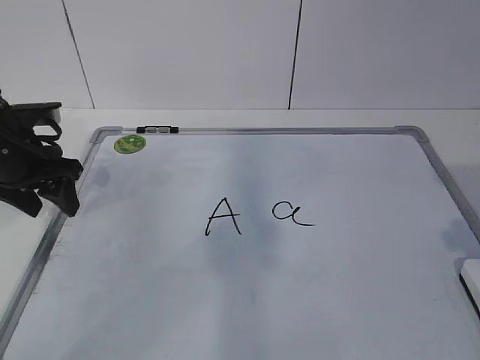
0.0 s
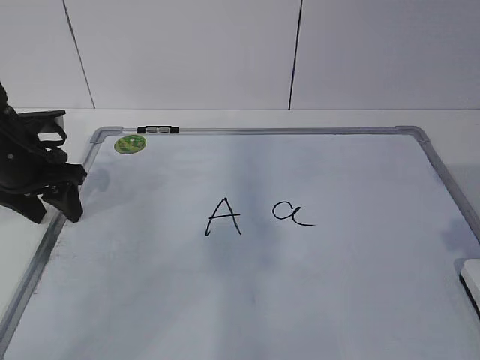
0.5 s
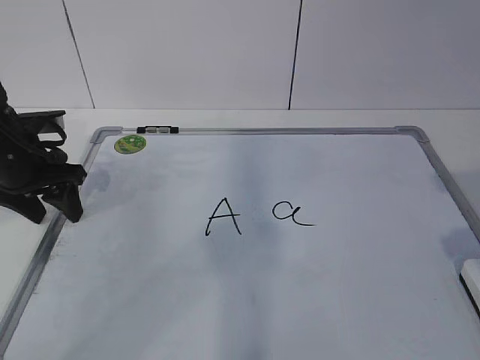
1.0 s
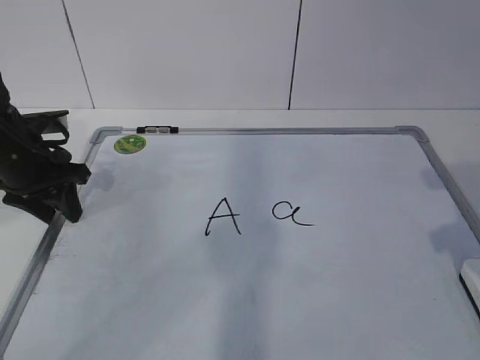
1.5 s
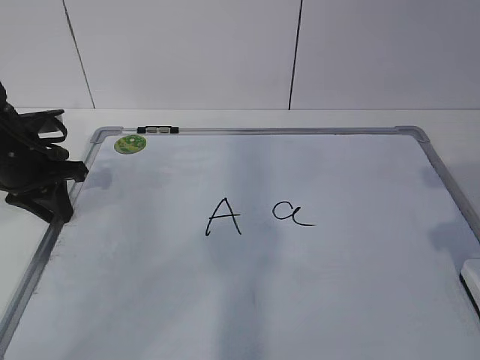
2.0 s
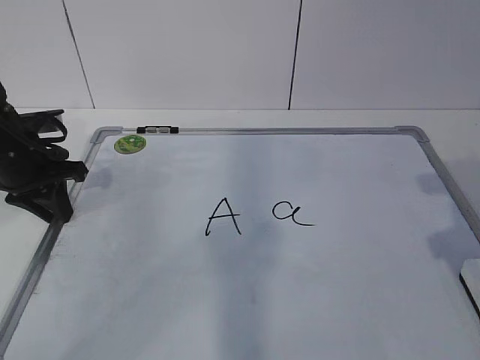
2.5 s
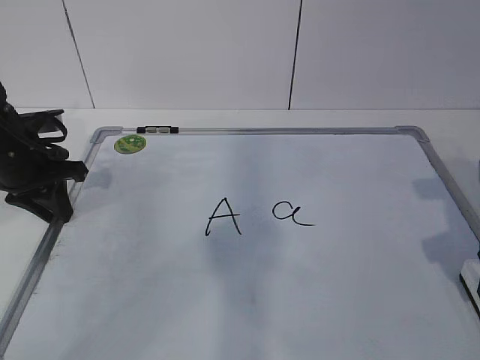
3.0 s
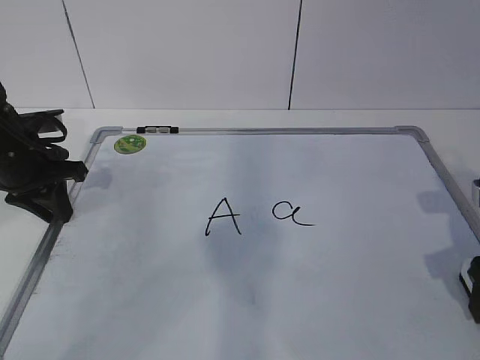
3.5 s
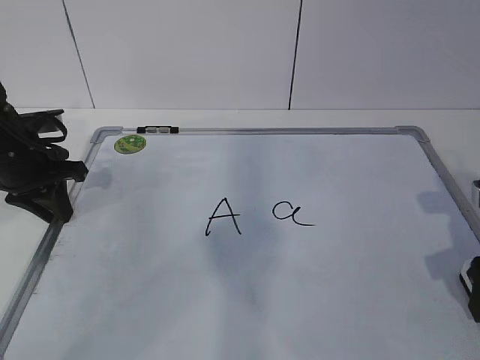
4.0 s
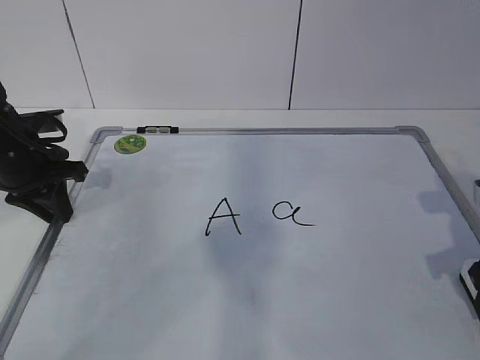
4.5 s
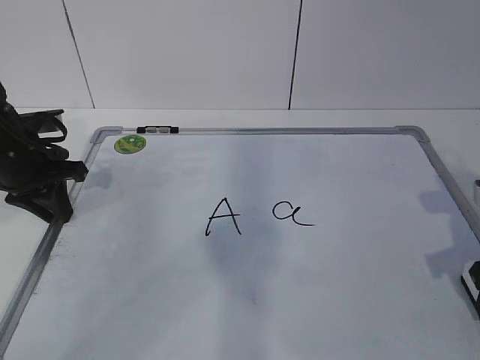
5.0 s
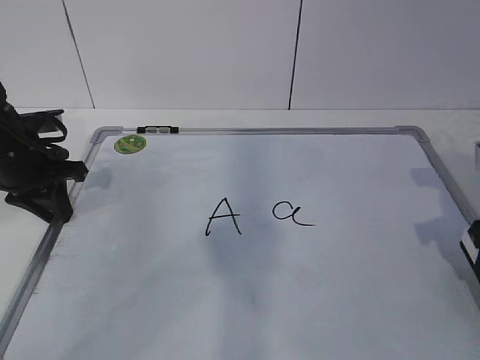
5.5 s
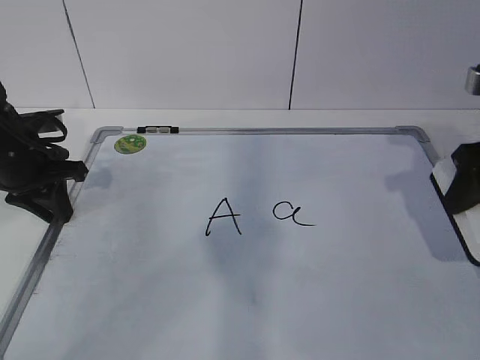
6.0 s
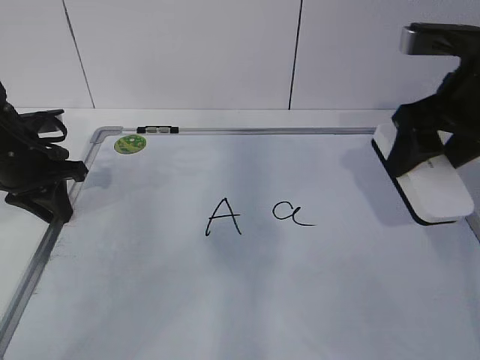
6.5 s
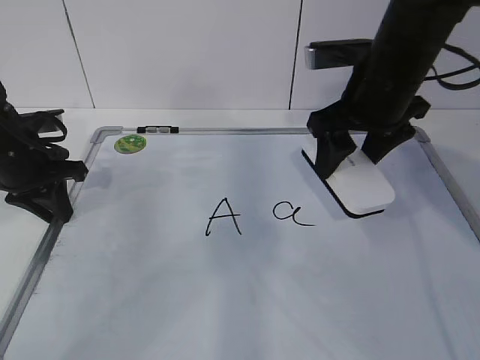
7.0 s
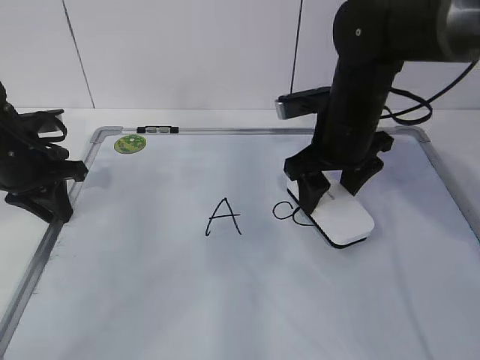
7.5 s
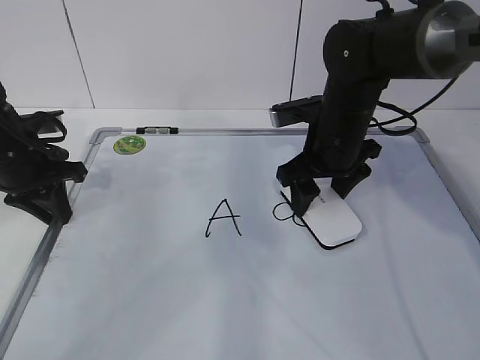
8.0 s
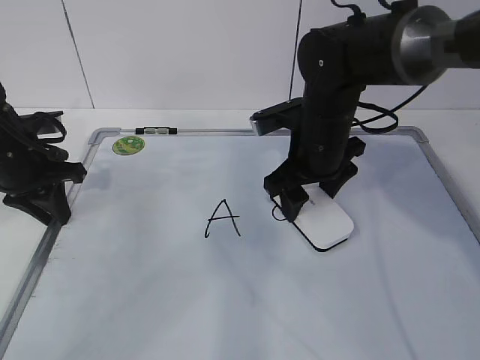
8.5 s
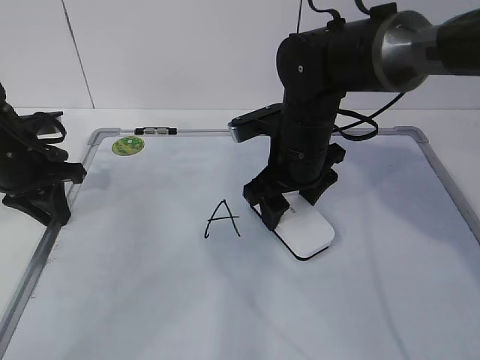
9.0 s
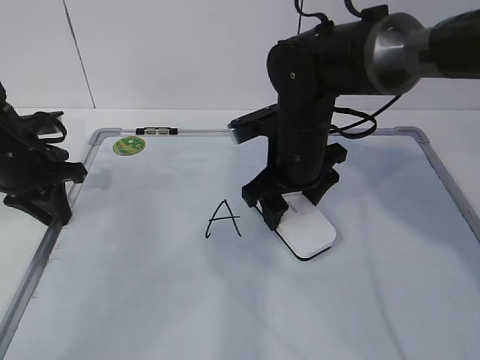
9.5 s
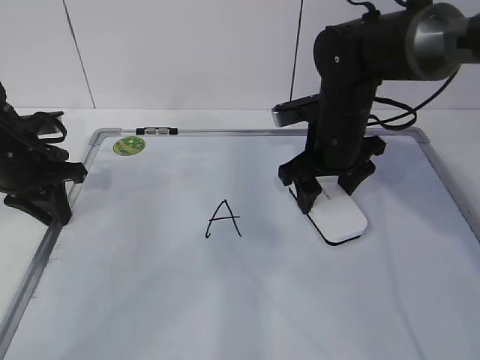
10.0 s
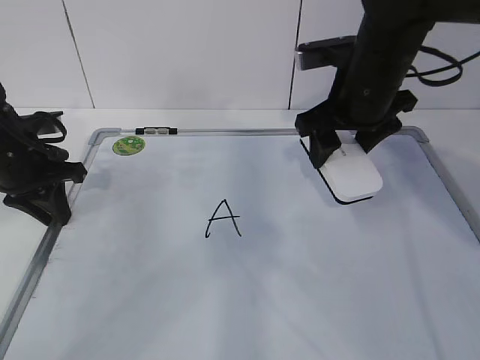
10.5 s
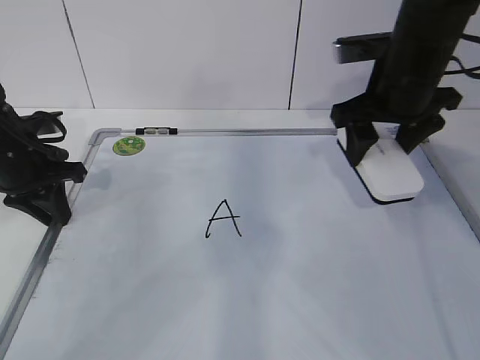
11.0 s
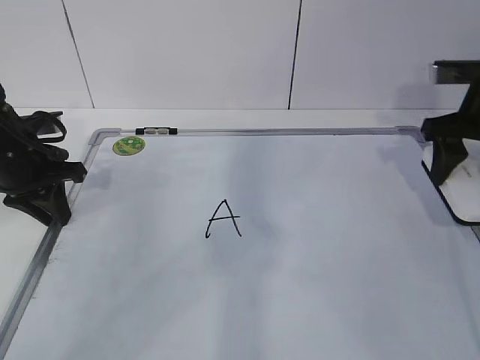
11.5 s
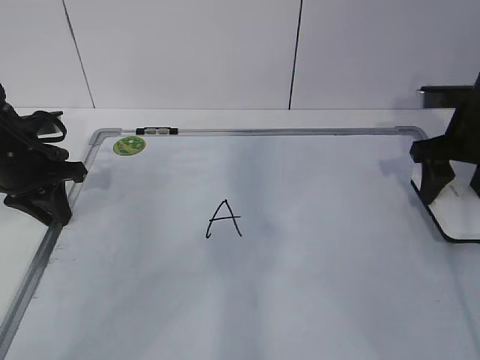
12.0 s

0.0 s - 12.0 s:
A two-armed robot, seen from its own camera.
Task of the whole recording: pick up the eraser on the blackboard and erase the letter "a".
Step, 0.5 s - 2.5 s: Grab the eraser with your right hand.
Step, 3.0 s - 7.0 s: Erase the letter a with your right hand.
Step, 7.5 s - 10.0 s: Put down the eraser with your right hand.
0.0 s - 2.0 s: The left gripper closes.
2.0 s - 4.0 s: The right gripper shifts about 10 cm downward, and opens its fingers.
4.0 s - 6.0 s: The right gripper is displaced upward by roughly 10 cm, and closes its fingers.
6.0 s - 8.0 s: The right gripper moves to the left, forward and downward, roughly 20 cm.
8.0 s - 10.0 s: The grippers make only small movements.
10.0 s - 12.0 s: The right gripper heads to the right, covering roughly 15 cm.

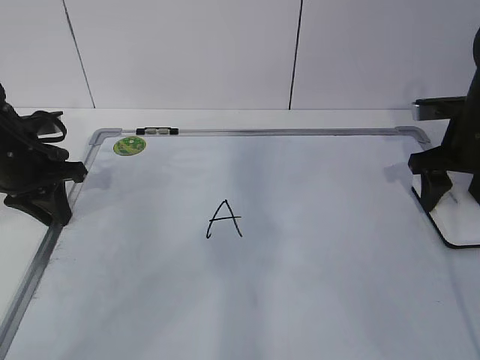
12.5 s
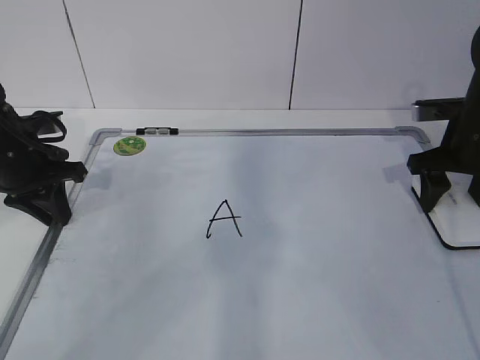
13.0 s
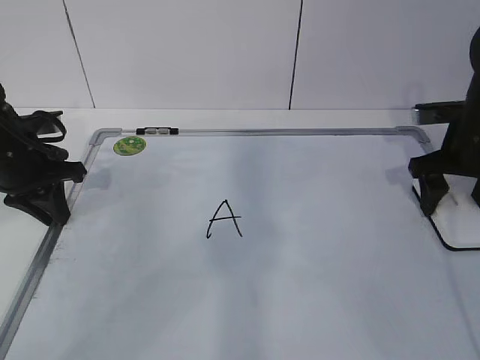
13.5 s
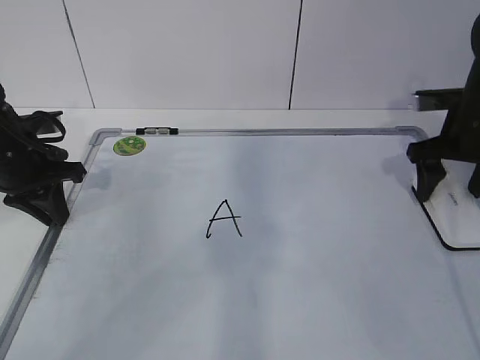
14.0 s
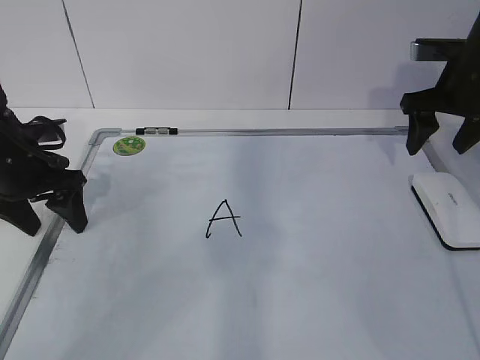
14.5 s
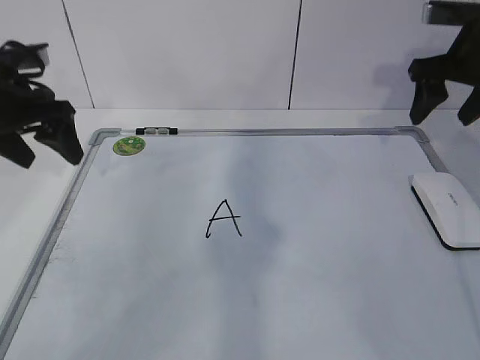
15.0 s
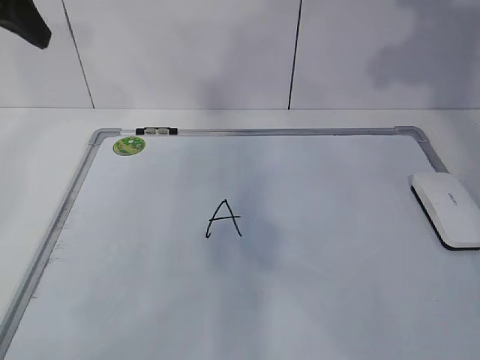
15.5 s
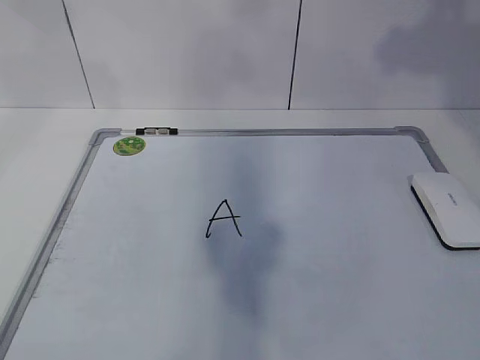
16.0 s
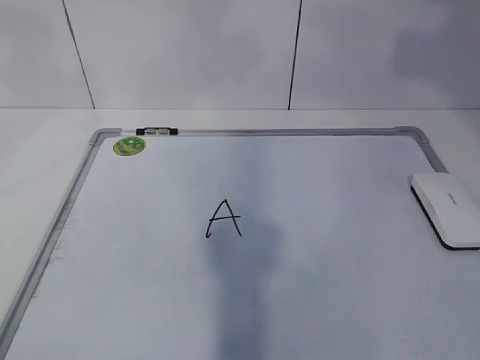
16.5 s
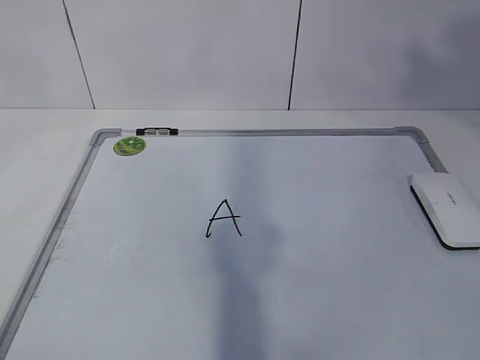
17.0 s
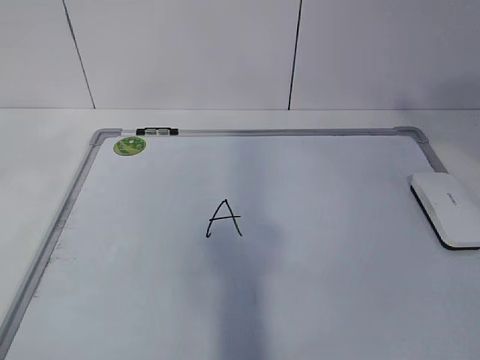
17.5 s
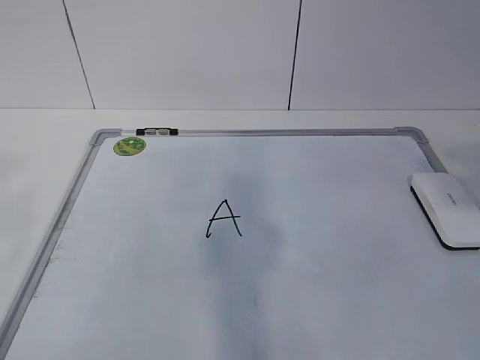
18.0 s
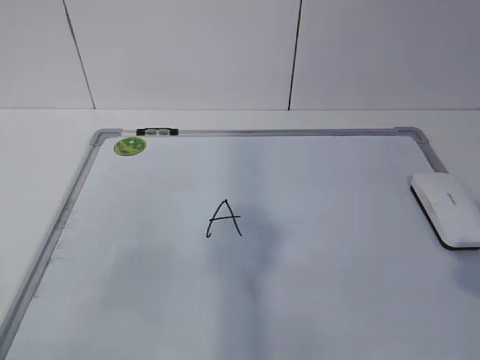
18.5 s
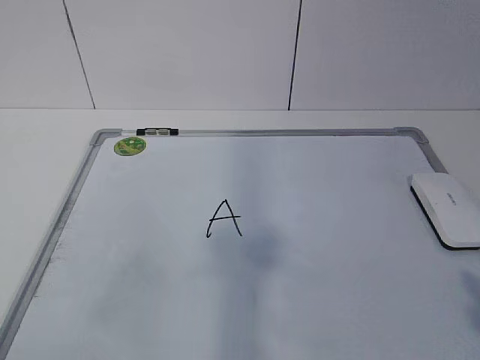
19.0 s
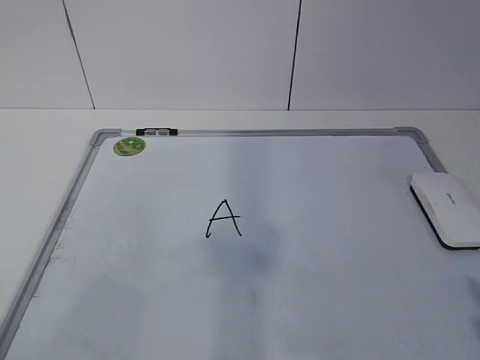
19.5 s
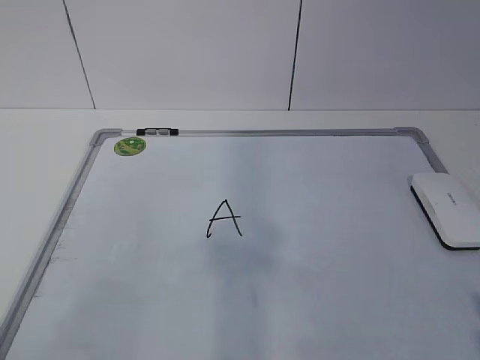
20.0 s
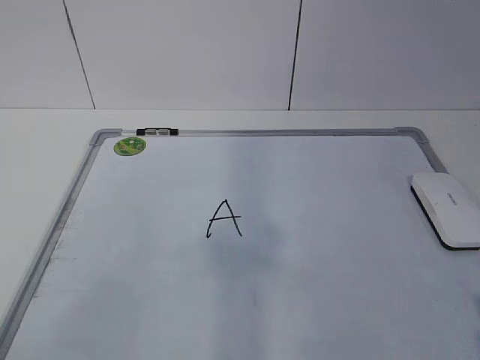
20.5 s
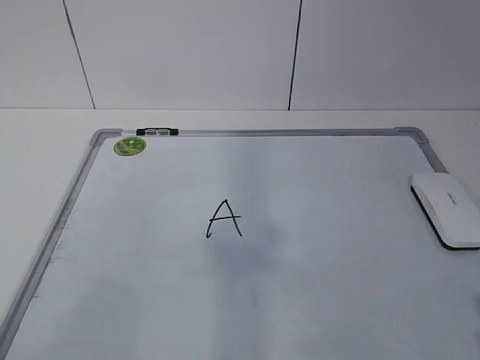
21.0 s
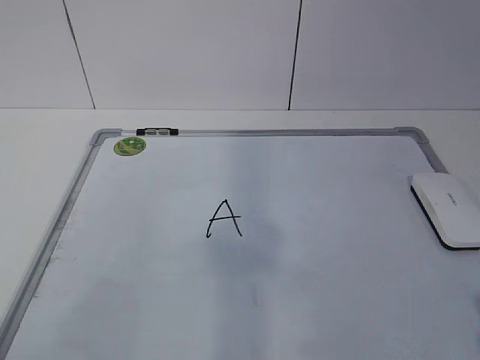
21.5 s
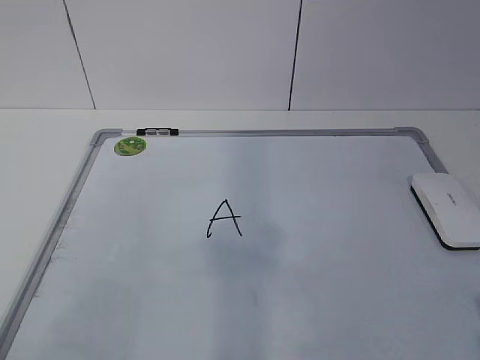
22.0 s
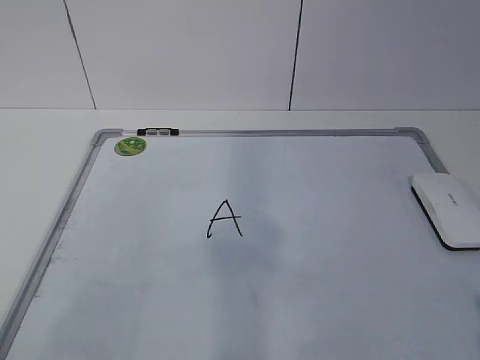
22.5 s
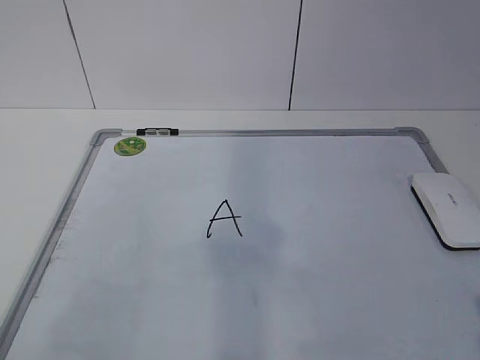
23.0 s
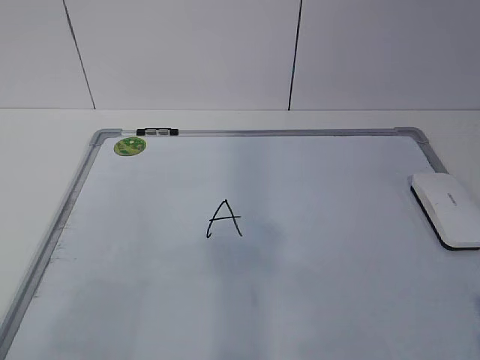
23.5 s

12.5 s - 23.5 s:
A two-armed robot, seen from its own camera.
Task of the whole recording: pick up the eraser on the blackboard and erase the letter "a".
12.5 s - 14.5 s: The right gripper heads upward, covering about 5 cm, and opens; the left gripper opens up.
14.5 s - 16.0 s: The left gripper moves upward, roughly 30 cm; the right gripper shifts some 30 cm upward and backward.
16.0 s - 18.0 s: The two grippers go approximately 25 cm backward.
18.0 s - 20.0 s: The left gripper travels downward by roughly 15 cm.
20.0 s - 21.5 s: Neither gripper changes place.

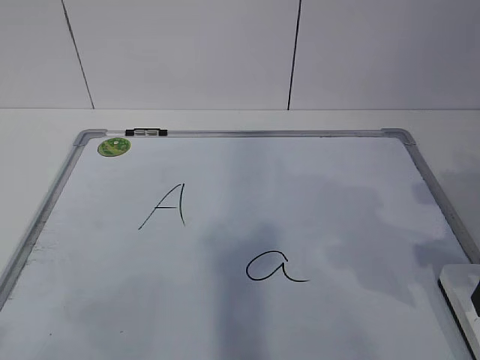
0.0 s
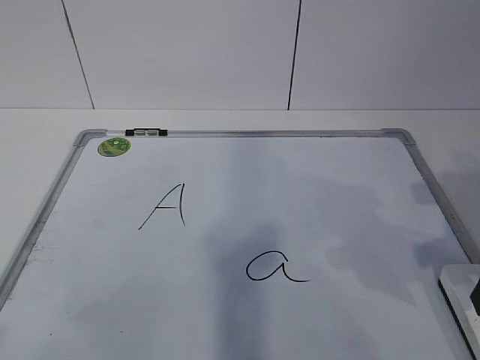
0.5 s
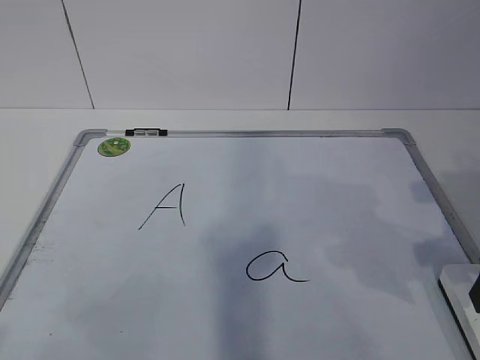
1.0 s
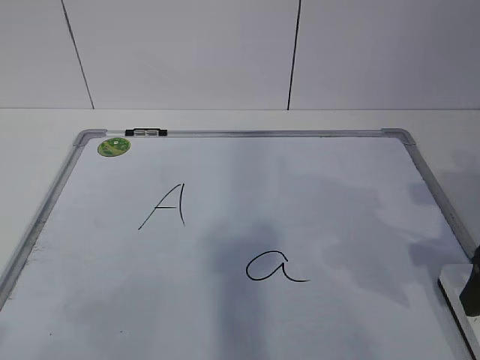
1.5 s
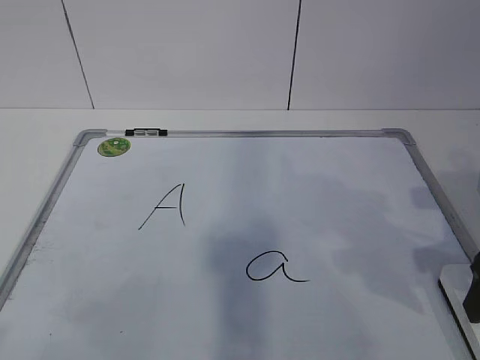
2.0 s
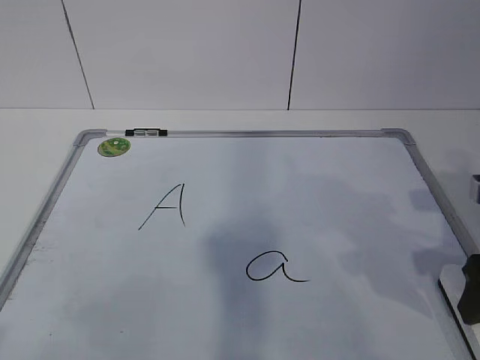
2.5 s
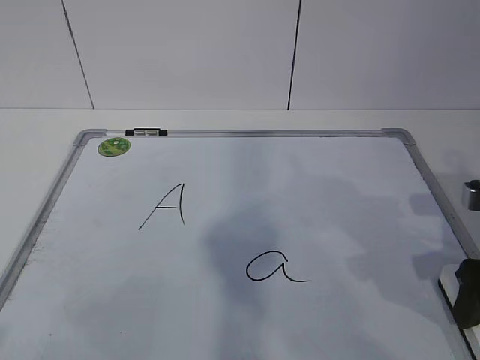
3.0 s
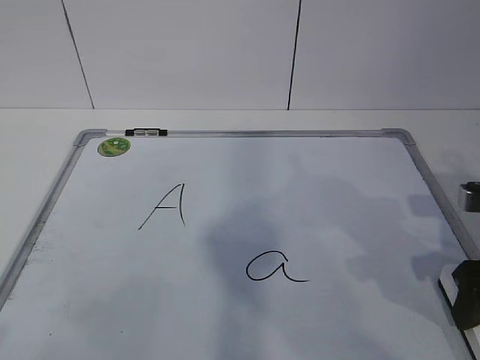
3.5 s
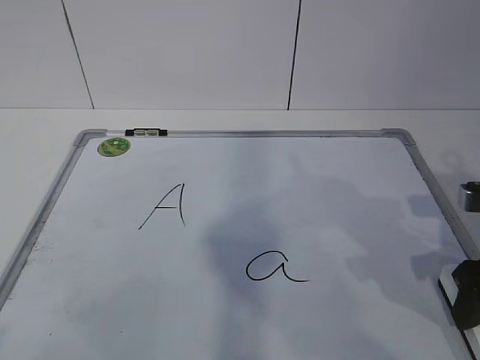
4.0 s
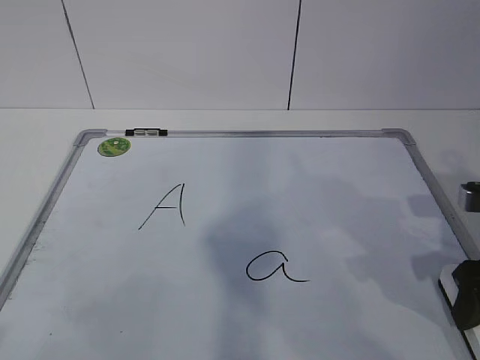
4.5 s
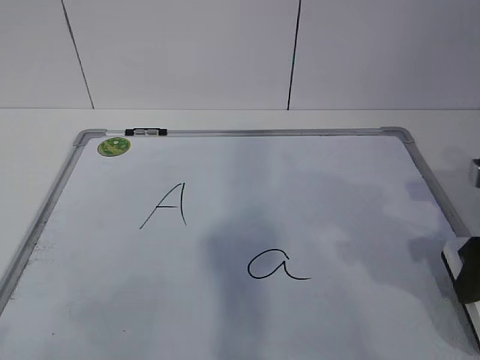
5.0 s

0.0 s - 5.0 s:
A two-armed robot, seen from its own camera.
Task of the whole recording: pick up the eraser on the blackboard and erase the letter "a".
2.5 s - 5.0 s: The grippers move only a little.
